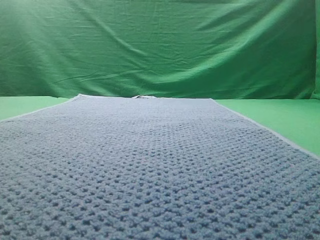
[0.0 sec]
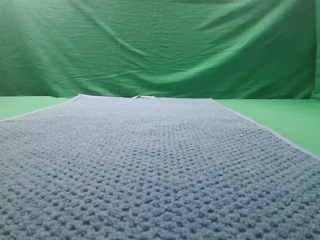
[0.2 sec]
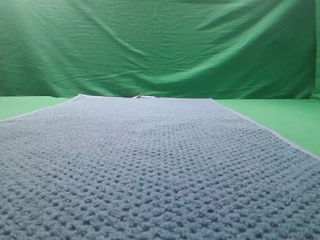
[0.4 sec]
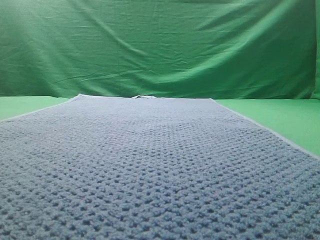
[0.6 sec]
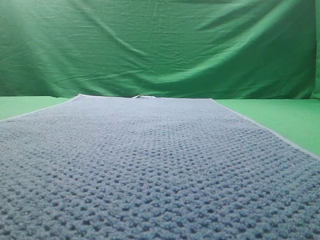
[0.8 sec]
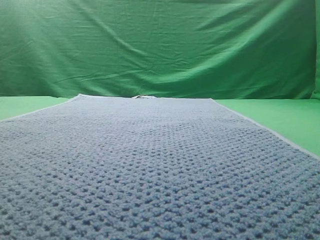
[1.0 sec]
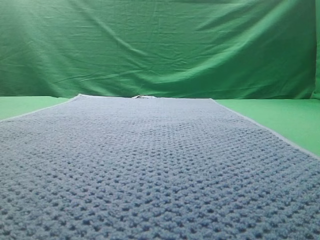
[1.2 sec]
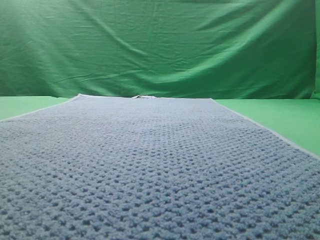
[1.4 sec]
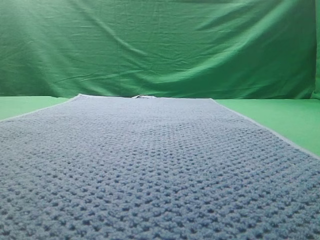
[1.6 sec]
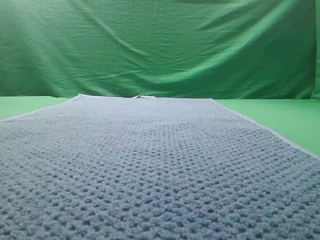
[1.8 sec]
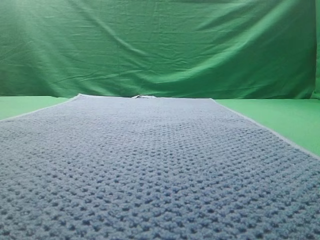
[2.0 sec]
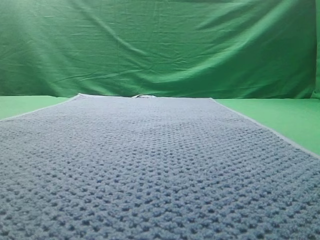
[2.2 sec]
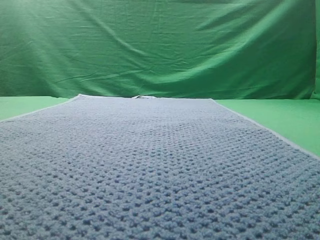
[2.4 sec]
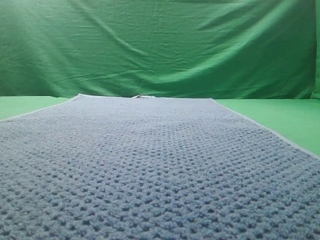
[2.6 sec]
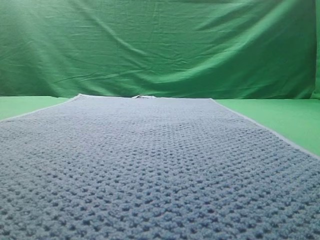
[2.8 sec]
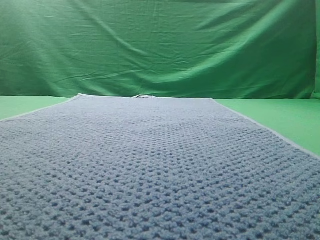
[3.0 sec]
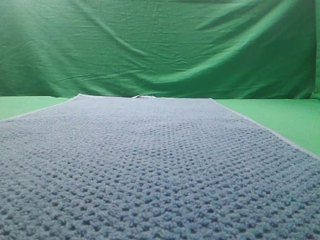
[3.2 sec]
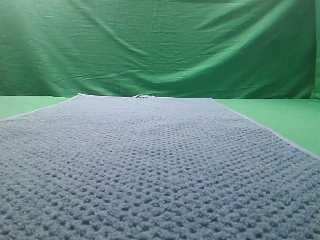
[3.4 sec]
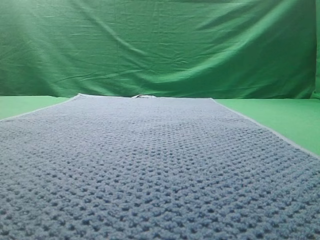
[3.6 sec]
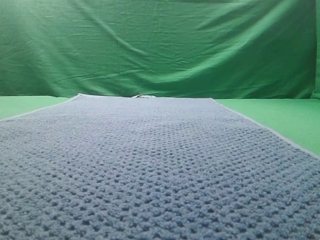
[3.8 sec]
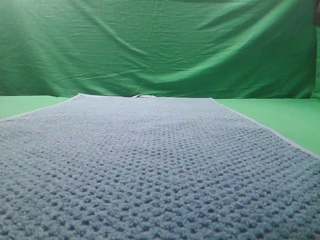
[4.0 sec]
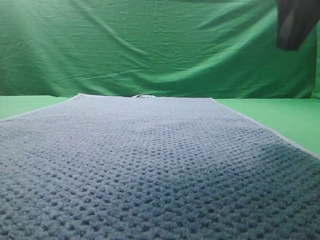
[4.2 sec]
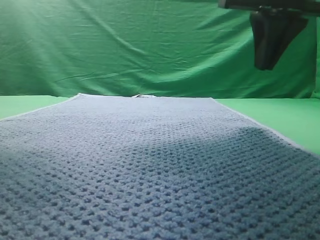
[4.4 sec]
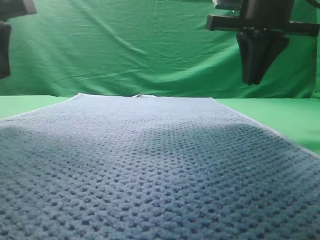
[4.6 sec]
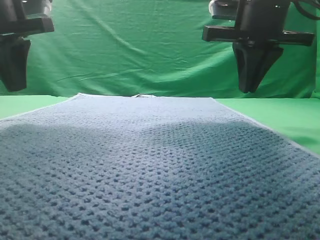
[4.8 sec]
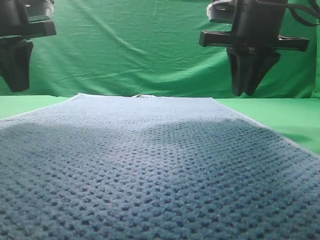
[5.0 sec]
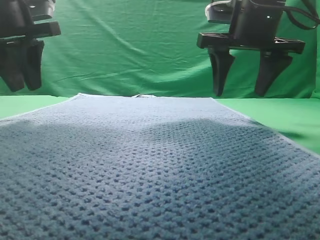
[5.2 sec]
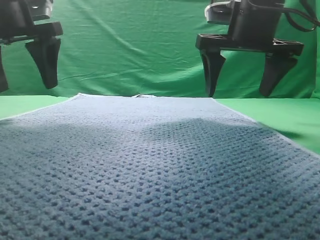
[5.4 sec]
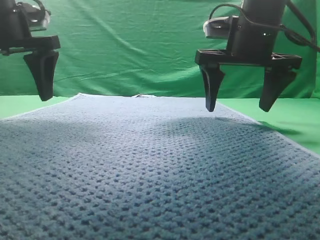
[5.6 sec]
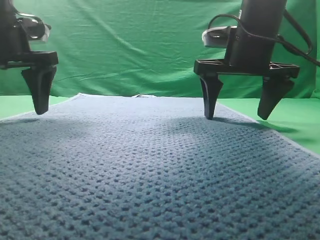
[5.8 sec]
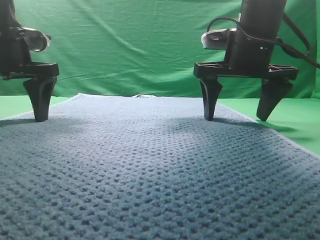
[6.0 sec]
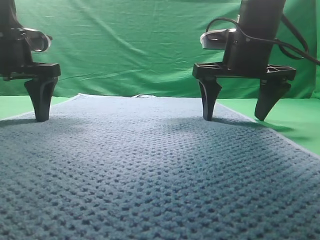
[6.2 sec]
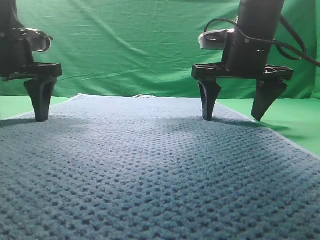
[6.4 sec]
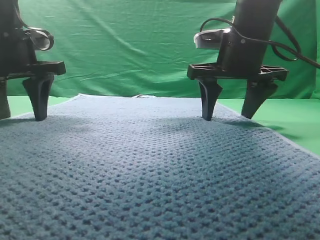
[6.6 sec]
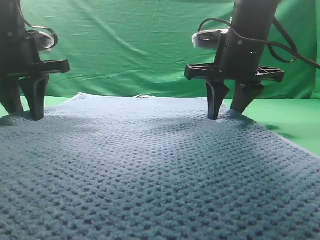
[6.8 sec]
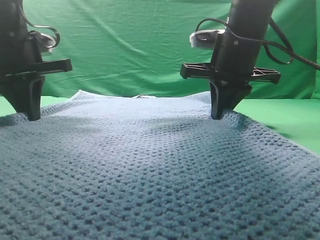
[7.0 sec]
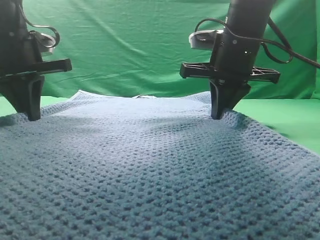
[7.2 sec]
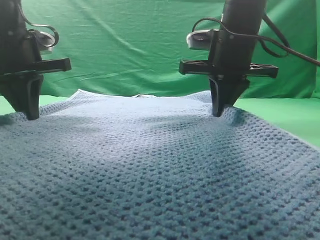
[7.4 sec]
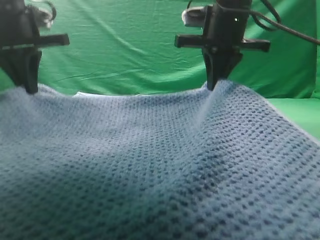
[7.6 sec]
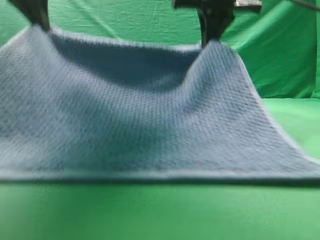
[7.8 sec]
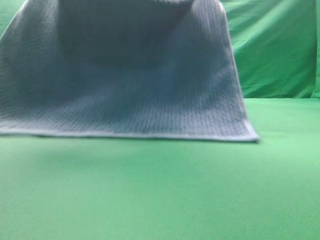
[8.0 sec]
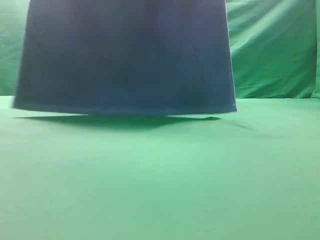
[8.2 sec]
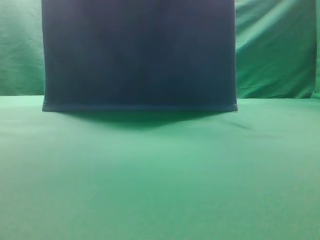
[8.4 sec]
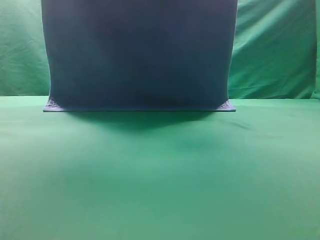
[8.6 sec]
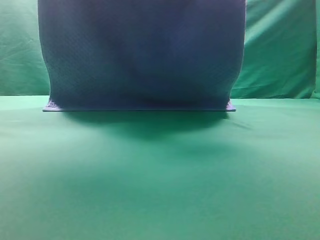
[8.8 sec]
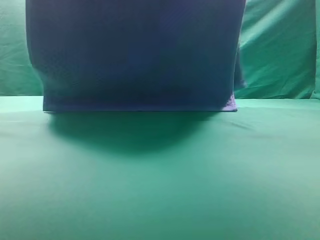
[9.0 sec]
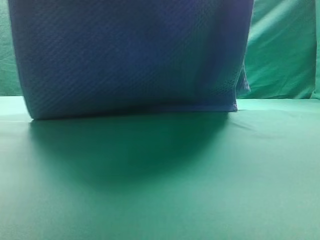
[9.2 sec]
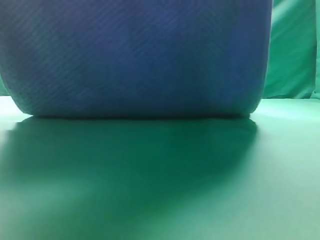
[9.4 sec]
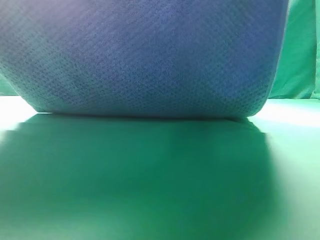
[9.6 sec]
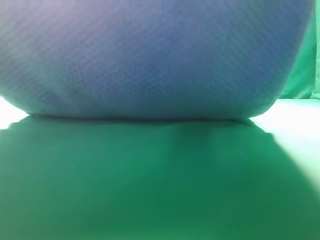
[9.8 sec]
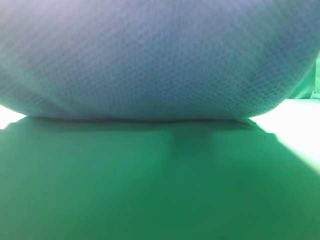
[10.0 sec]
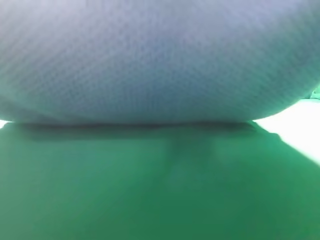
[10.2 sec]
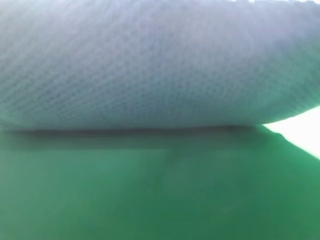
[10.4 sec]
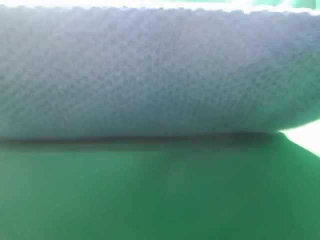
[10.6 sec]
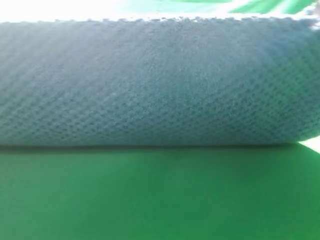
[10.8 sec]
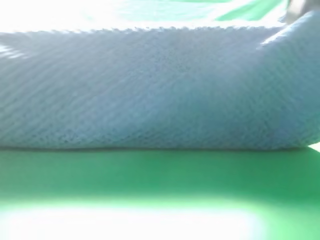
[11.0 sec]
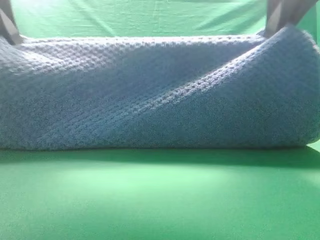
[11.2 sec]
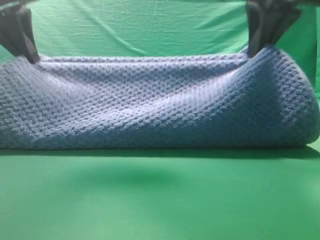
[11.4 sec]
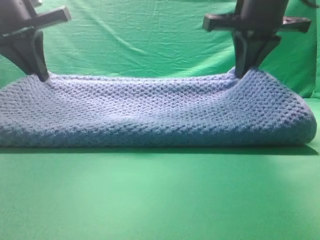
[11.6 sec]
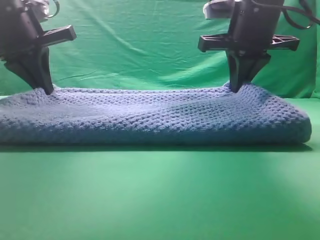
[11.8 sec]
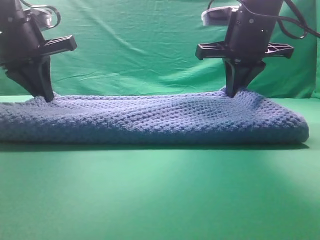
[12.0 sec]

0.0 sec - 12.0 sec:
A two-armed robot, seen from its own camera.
Task of the whole recording: fold the towel on the table twice.
Step, 0.0 sec - 8.2 sec: pick up the towel with two arm.
